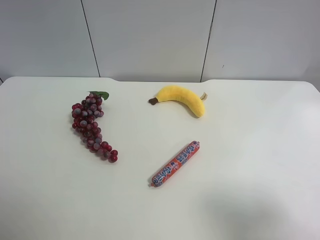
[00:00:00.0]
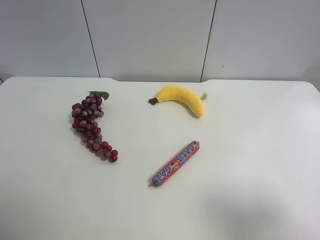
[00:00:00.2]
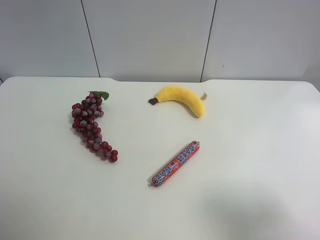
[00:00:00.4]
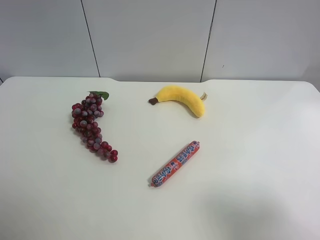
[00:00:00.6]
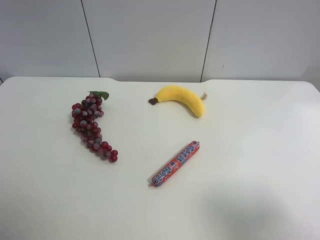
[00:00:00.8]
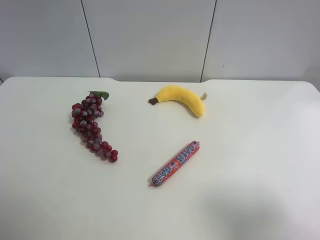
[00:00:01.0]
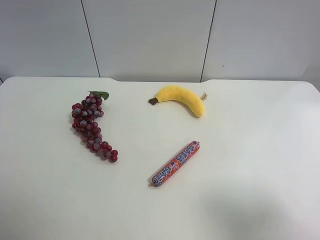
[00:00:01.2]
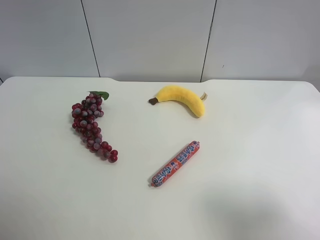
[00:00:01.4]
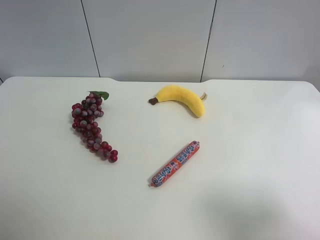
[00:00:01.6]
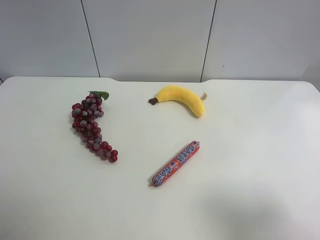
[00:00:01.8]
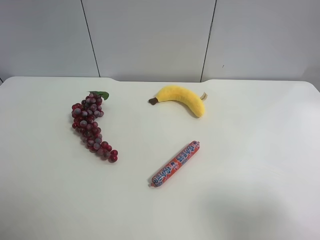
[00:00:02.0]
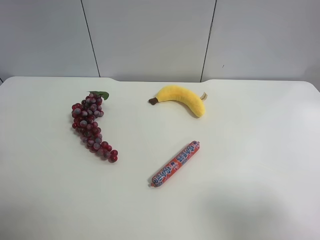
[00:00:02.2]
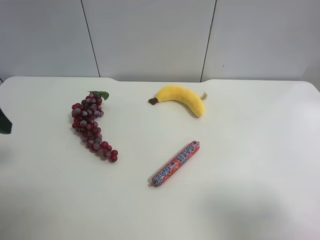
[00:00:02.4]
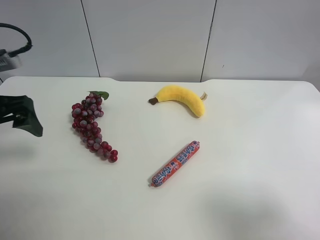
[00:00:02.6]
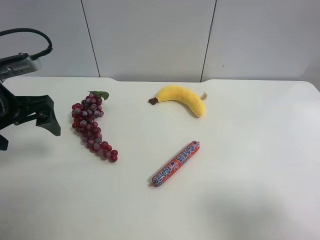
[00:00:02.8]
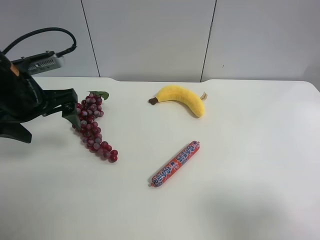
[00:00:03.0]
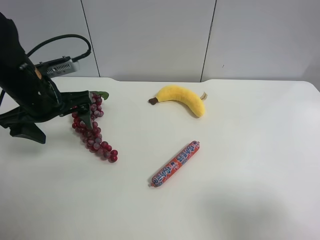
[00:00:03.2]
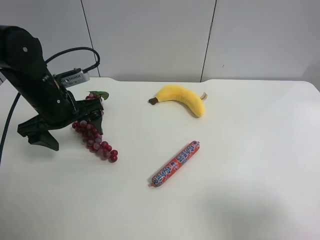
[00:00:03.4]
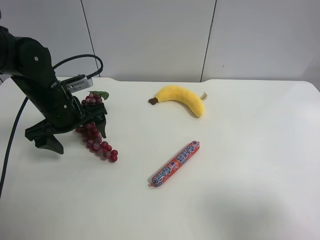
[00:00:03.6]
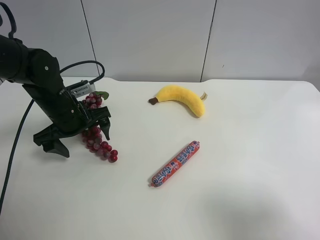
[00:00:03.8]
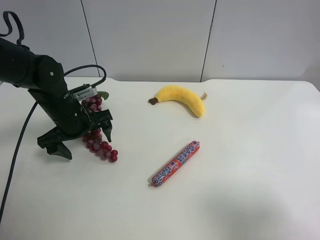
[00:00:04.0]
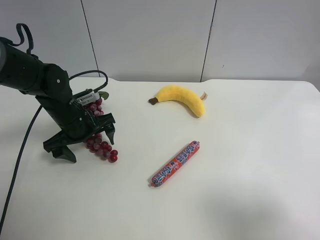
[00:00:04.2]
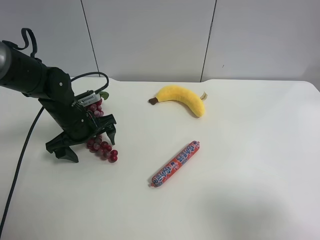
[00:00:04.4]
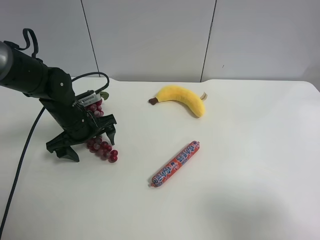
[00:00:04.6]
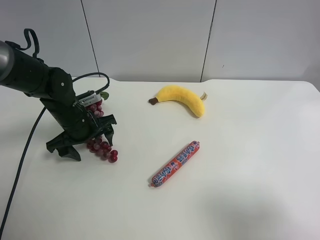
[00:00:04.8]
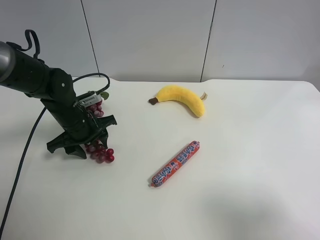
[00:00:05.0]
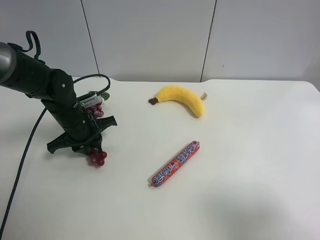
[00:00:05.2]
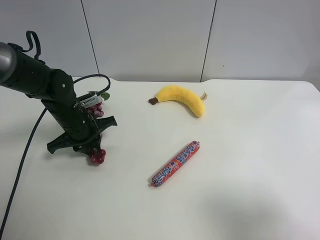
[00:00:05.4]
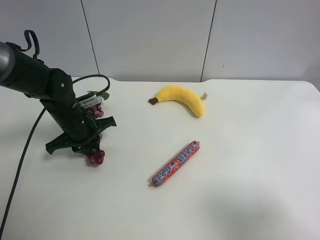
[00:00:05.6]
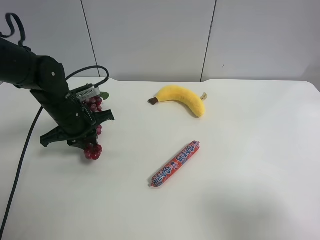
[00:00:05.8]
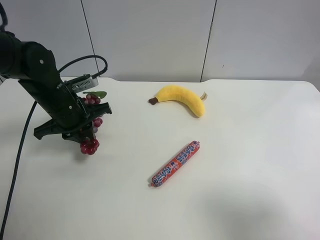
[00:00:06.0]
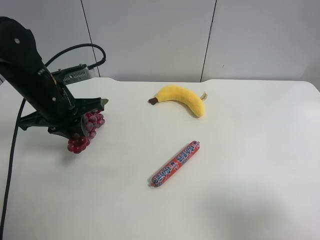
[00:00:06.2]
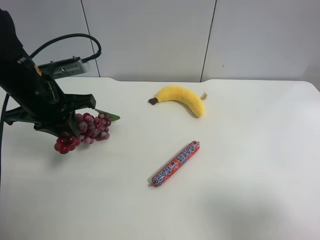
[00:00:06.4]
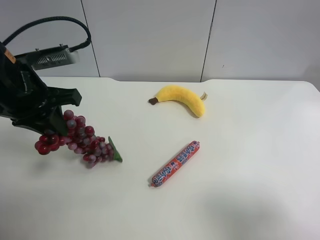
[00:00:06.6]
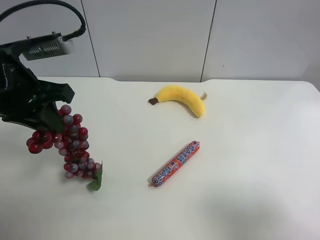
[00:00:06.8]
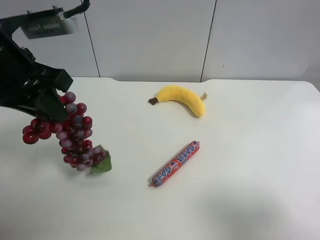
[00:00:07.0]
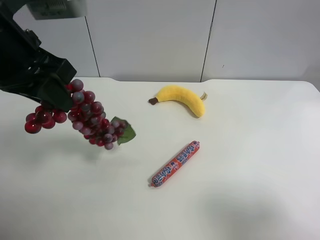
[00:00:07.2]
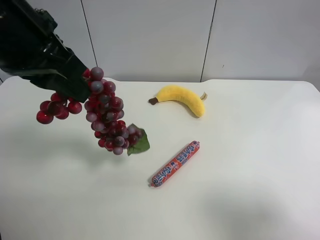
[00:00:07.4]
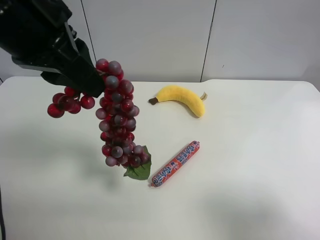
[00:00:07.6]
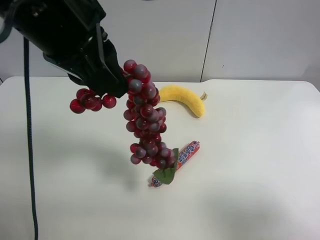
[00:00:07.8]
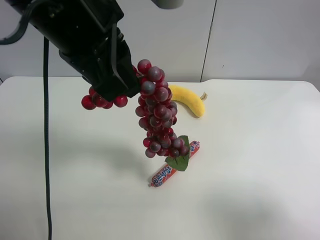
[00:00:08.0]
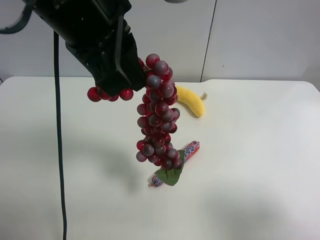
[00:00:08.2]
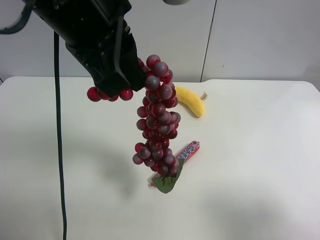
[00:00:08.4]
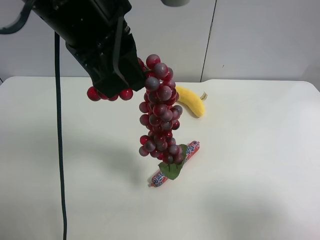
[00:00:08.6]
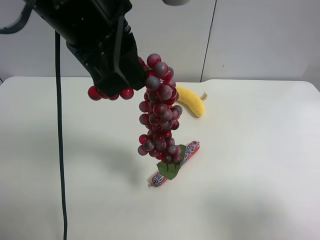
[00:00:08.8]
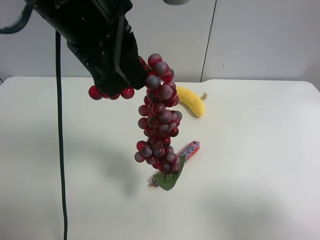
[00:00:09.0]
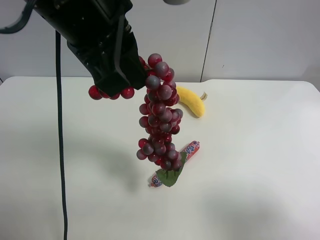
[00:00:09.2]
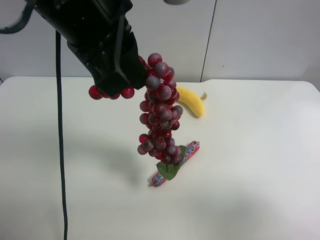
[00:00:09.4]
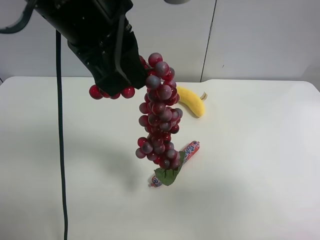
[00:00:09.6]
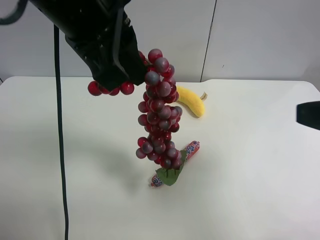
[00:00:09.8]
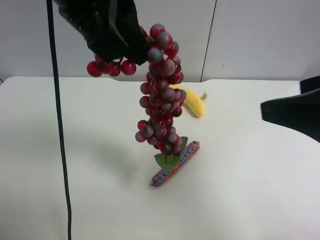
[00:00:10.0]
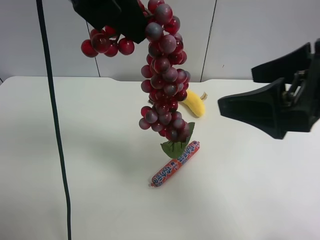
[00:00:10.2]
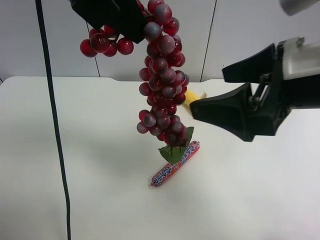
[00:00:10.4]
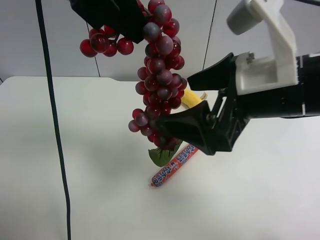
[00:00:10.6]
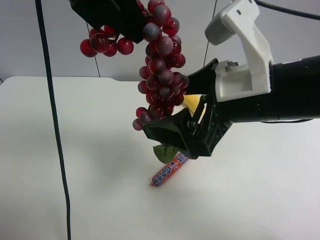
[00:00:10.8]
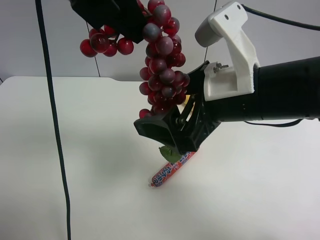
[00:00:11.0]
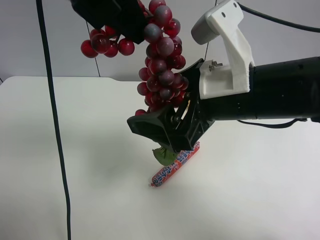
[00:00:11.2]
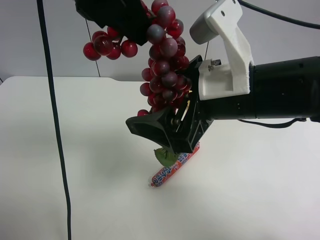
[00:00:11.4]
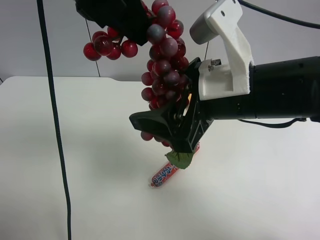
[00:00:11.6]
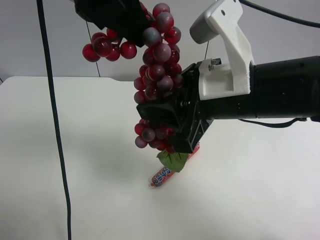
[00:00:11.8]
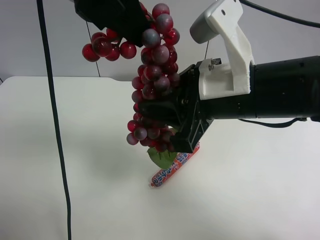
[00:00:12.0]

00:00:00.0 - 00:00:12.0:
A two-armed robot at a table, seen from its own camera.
Task of the whole recording: use the left gripper to pick up the item and transfer it from the left gripper to the right gripper.
00:00:01.6 - 00:00:03.0: The left gripper goes roughly 25 cm forward.
00:00:03.0 - 00:00:04.4: The left gripper goes roughly 15 cm downward and forward.
00:00:04.4 - 00:00:06.0: The left gripper heads upward, covering about 5 cm, and closes.
00:00:06.0 - 00:00:07.6: The left gripper moves upward and backward, approximately 25 cm.
00:00:07.6 - 00:00:09.0: The left gripper shifts approximately 5 cm to the right.
00:00:09.0 - 00:00:10.4: The right gripper heads forward and to the left, covering approximately 20 cm, while the left gripper shifts approximately 5 cm upward.
00:00:10.4 - 00:00:12.0: The right gripper heads to the left, covering roughly 5 cm, and closes its fingers.

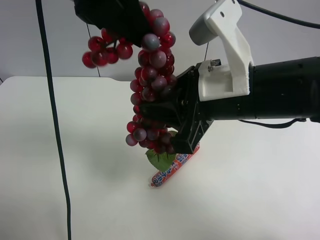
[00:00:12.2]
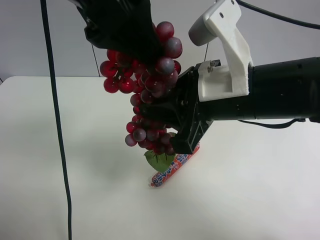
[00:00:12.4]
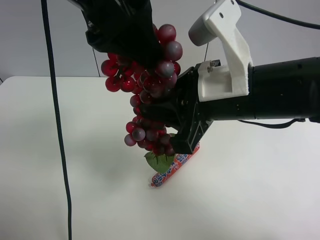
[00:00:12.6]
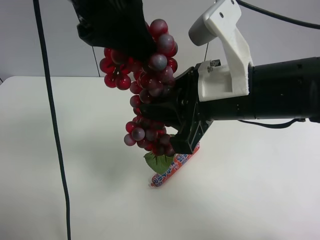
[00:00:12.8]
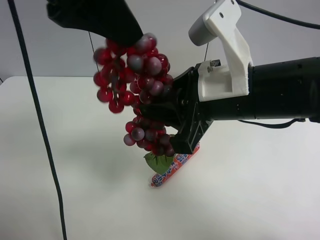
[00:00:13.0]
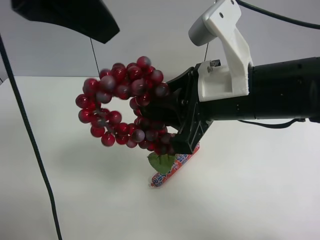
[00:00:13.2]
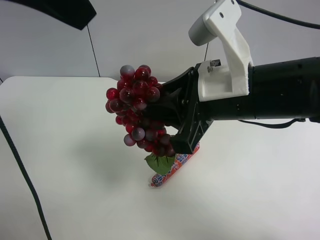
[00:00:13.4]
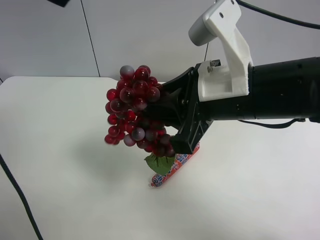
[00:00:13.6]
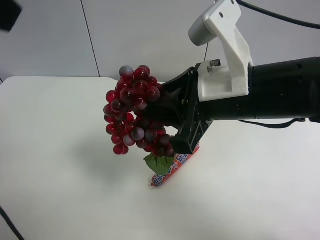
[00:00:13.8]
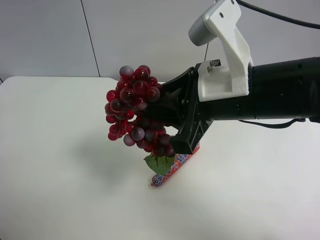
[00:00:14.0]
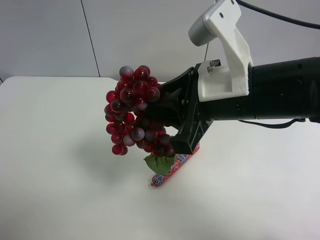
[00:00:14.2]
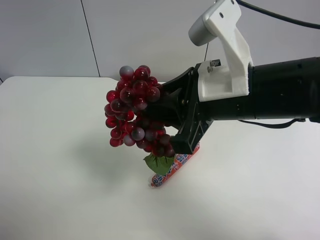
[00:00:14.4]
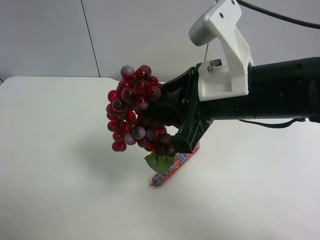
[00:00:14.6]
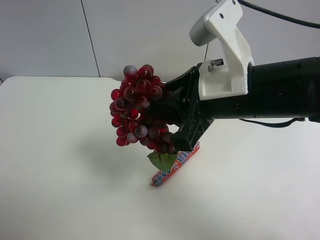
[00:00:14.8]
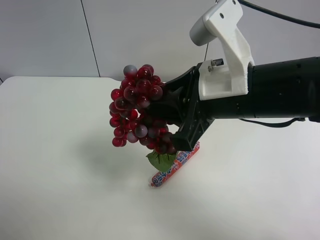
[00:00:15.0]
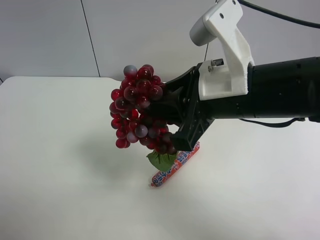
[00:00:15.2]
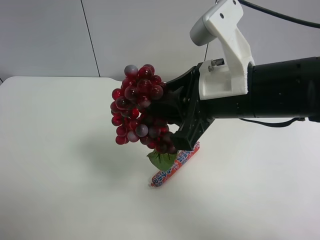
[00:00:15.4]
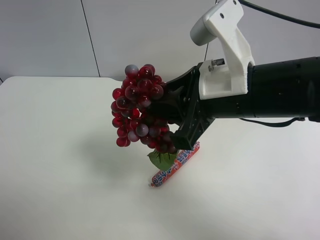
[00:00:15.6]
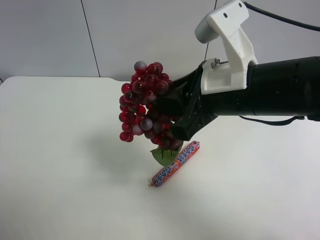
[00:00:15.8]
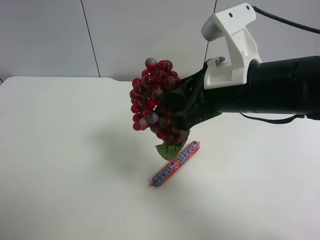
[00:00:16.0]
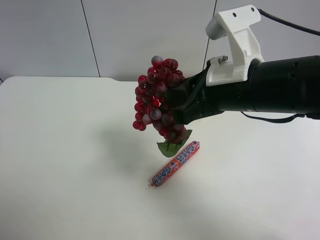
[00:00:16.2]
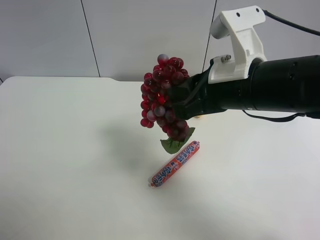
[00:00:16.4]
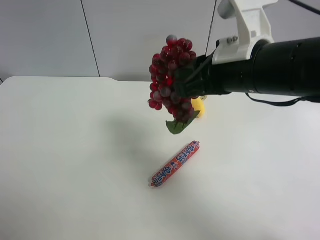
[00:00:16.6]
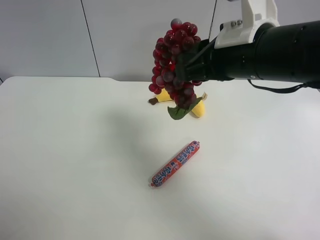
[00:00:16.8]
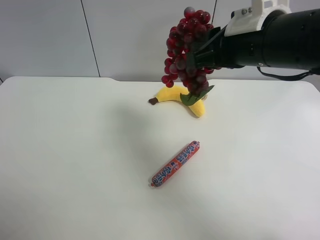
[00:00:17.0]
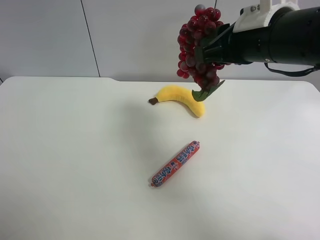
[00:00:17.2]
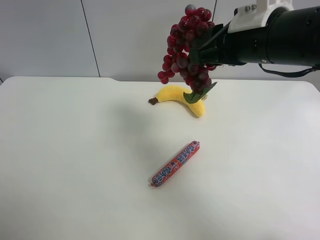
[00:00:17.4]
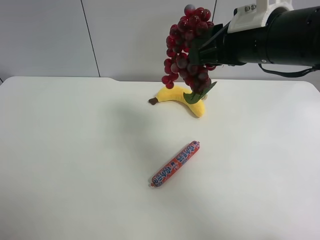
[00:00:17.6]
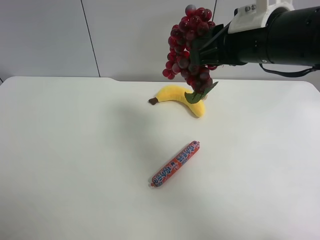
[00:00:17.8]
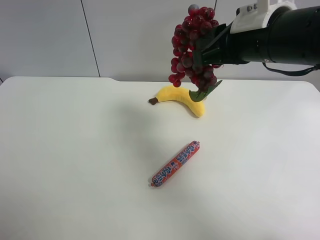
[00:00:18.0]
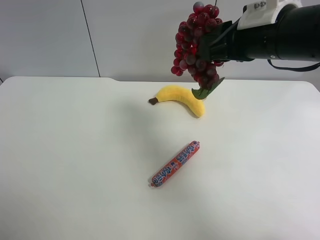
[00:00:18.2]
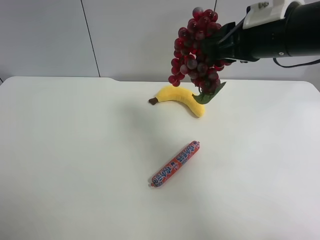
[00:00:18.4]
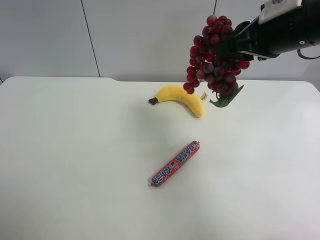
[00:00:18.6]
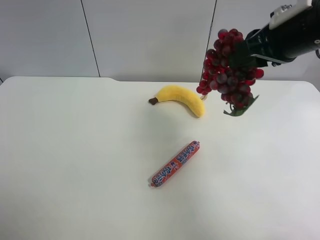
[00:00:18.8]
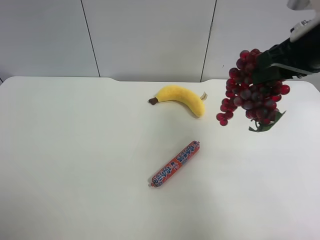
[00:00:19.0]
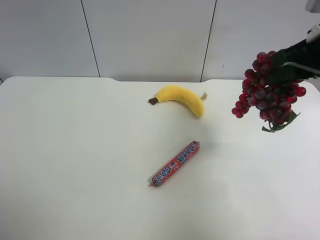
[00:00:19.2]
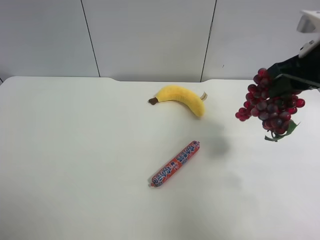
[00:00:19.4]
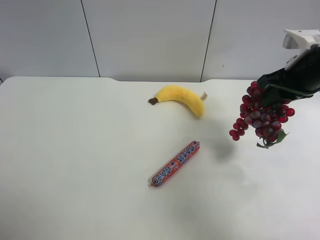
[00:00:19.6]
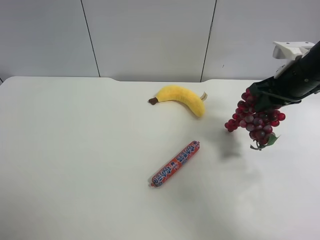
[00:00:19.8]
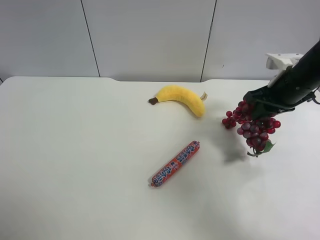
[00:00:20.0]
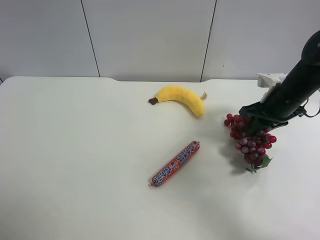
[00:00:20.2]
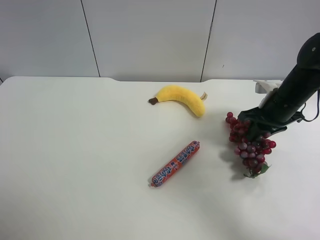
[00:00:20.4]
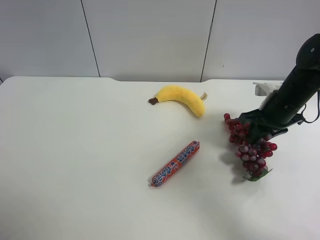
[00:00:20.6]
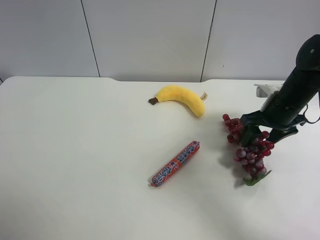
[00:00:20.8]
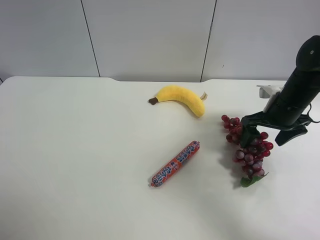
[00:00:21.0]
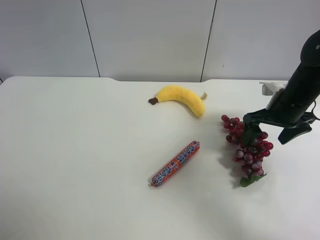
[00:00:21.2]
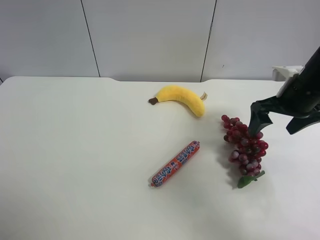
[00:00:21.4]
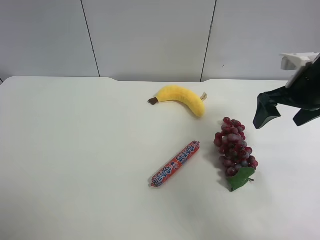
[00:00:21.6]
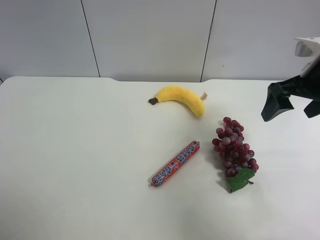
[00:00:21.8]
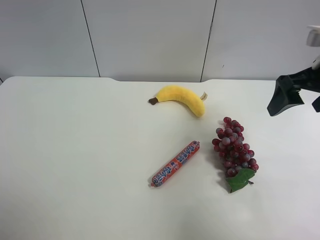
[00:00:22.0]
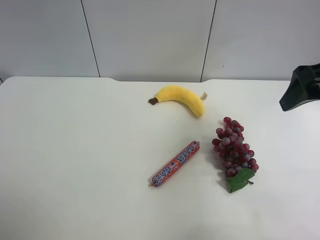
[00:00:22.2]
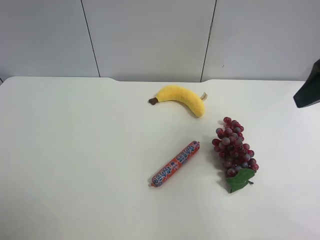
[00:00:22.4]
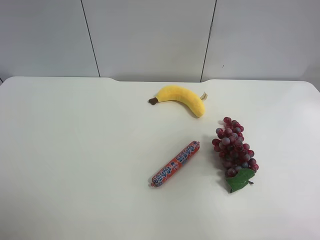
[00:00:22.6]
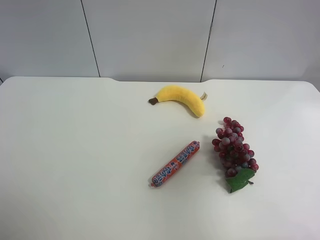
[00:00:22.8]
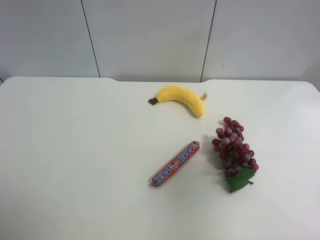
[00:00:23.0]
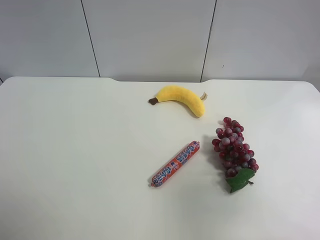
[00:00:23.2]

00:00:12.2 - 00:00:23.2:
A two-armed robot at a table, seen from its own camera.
Task of the whole recording: use the left gripper to pick up the item and transfer it from the left gripper to the right gripper.
00:00:12.2 - 00:00:13.8: The left gripper travels to the left and backward by about 15 cm, and opens.
00:00:13.8 - 00:00:15.4: The left gripper moves downward, to the left and backward, some 25 cm.
00:00:15.4 - 00:00:17.0: The right gripper shifts by about 5 cm.
00:00:17.0 - 00:00:18.4: There are only small adjustments of the grippers.
00:00:18.4 - 00:00:20.0: The right gripper heads downward, to the right and forward, covering about 15 cm.
00:00:20.0 - 00:00:21.6: The right gripper changes place by roughly 5 cm, and opens up.
00:00:21.6 - 00:00:23.2: The right gripper moves backward, approximately 25 cm.
